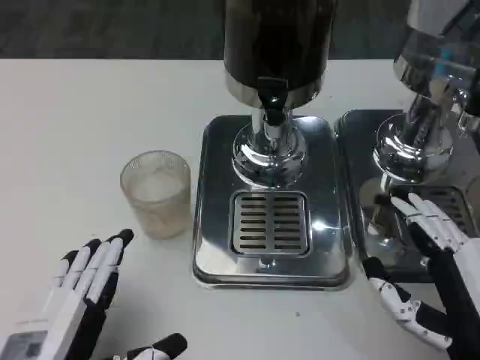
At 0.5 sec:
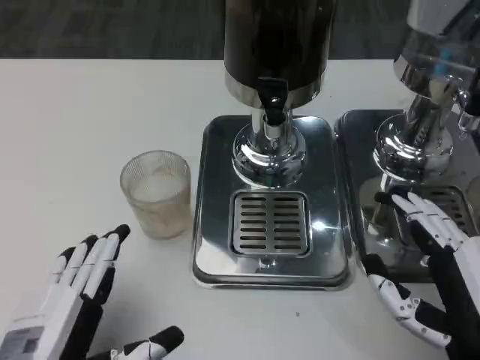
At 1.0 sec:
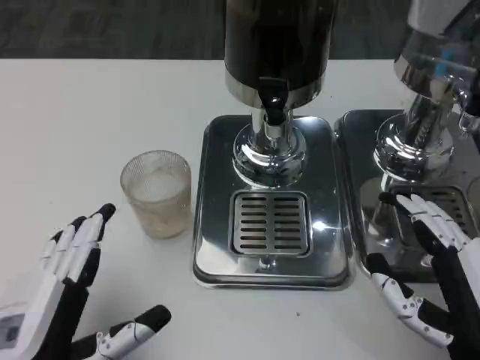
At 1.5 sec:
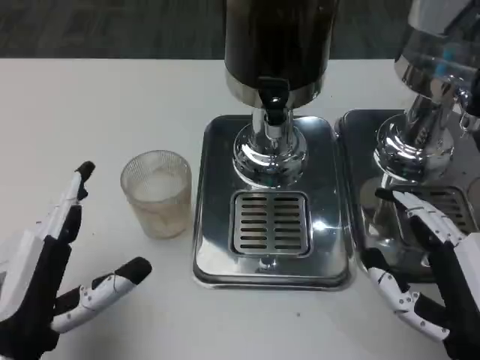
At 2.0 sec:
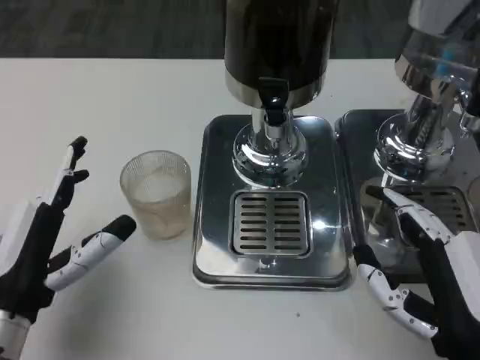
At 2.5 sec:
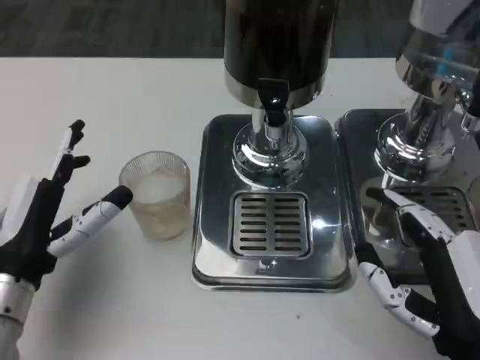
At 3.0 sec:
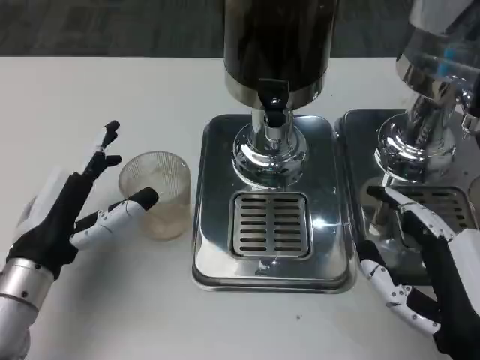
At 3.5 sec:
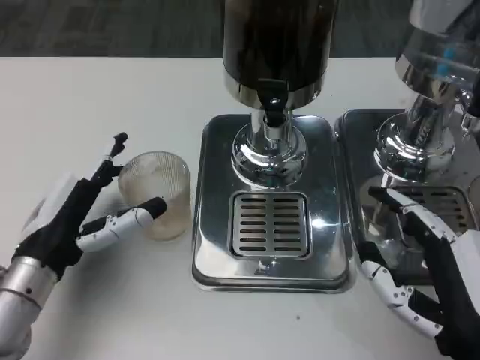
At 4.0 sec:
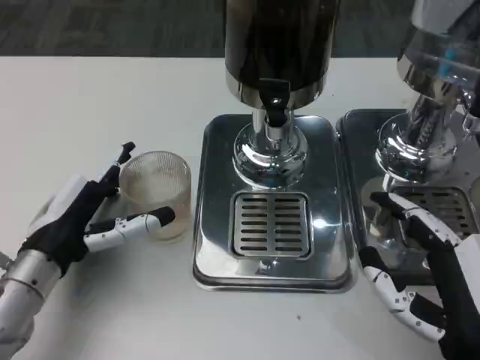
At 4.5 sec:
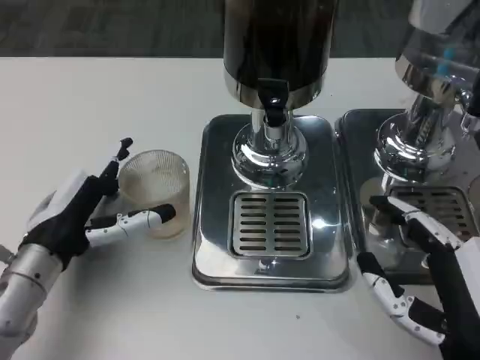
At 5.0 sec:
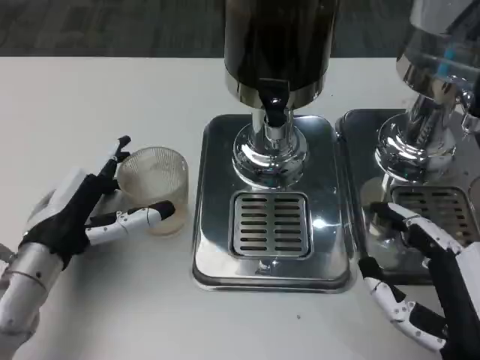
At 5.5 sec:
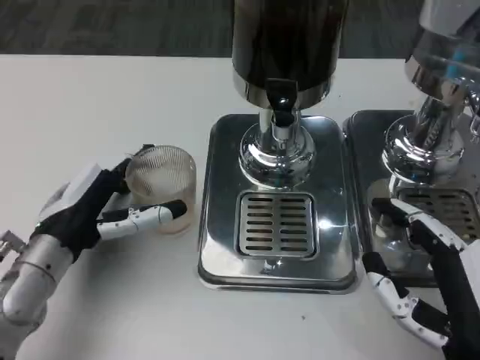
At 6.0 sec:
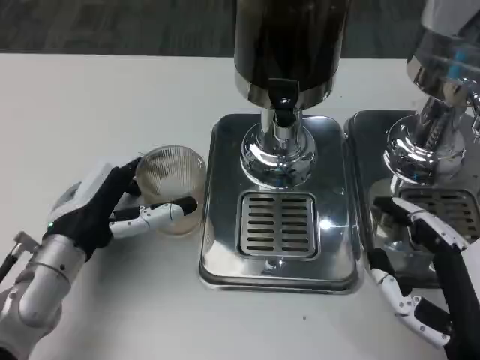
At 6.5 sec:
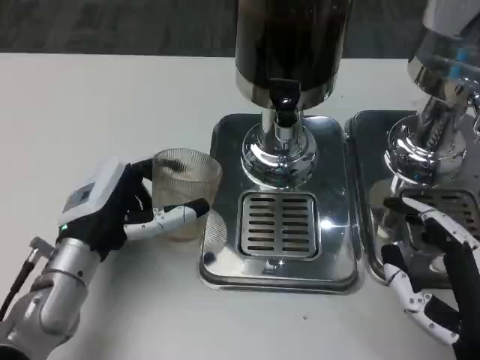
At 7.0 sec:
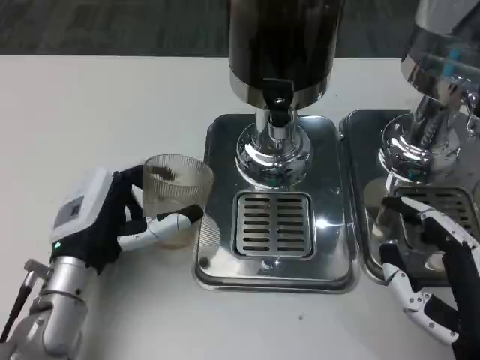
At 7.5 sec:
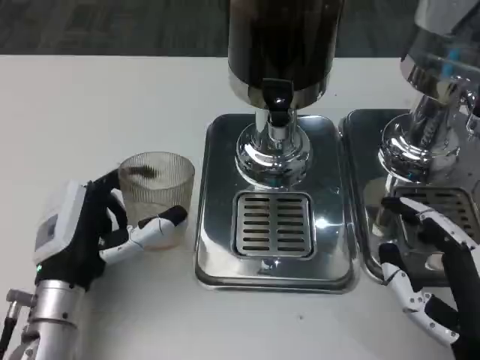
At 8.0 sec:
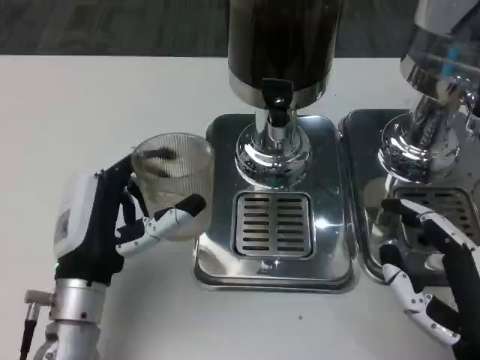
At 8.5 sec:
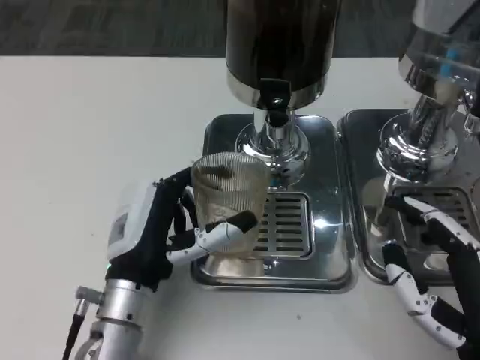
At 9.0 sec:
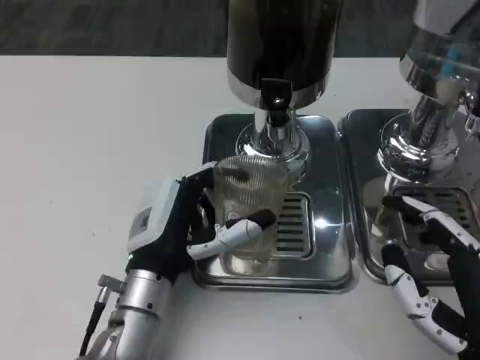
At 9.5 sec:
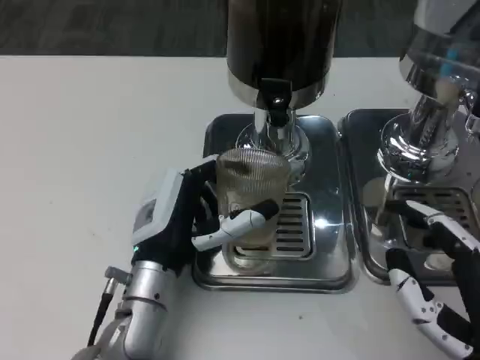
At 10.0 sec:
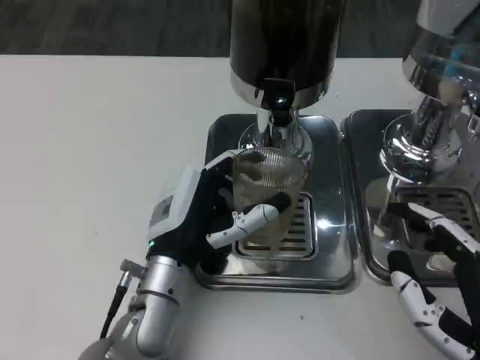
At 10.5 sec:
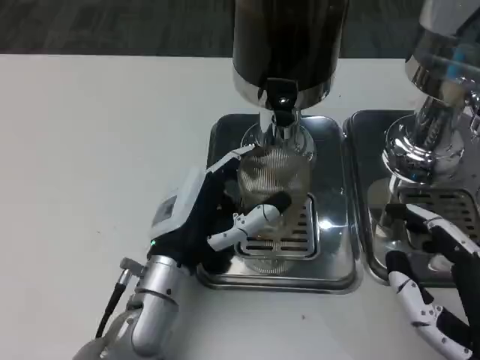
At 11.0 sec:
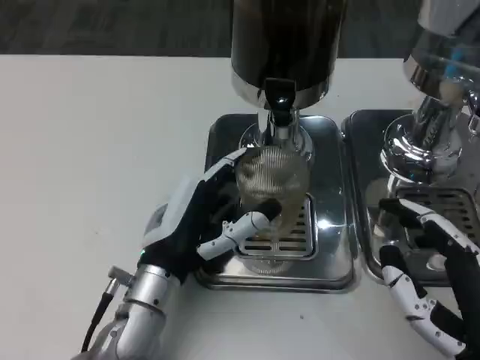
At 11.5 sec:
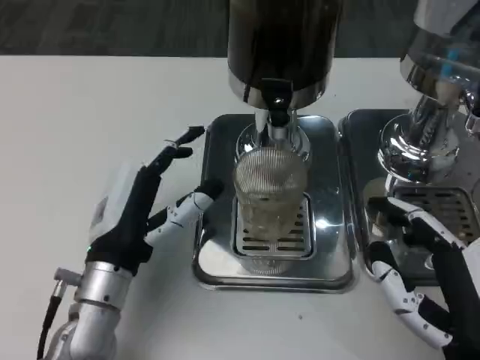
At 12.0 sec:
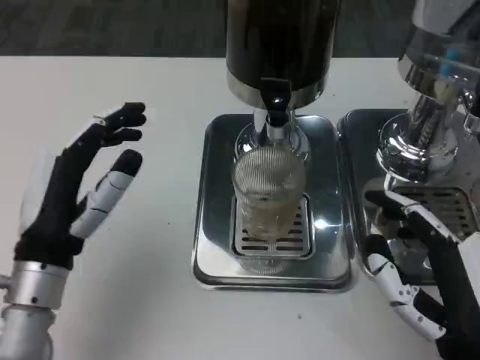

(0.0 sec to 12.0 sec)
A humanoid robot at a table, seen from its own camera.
Task of the whole recording: Grasp the cup under the faucet to collect the drink, then remove the cup.
0.0 sec - 2.0 sec: The left hand is displaced forward by approximately 10 cm.
2.0 sec - 4.0 sec: The left hand heads forward, covering approximately 5 cm.
6.0 sec - 8.0 sec: The left hand shifts by roughly 5 cm.
8.0 sec - 10.0 sec: The left hand moves to the right, roughly 5 cm.
10.0 sec - 12.0 sec: The left hand shifts some 10 cm to the left.

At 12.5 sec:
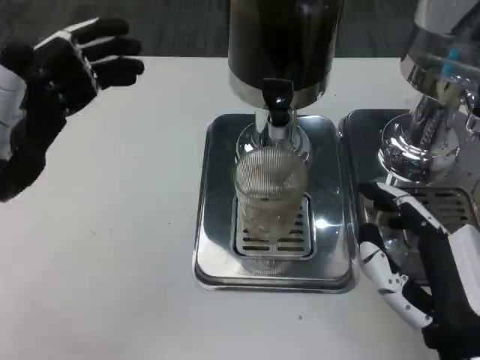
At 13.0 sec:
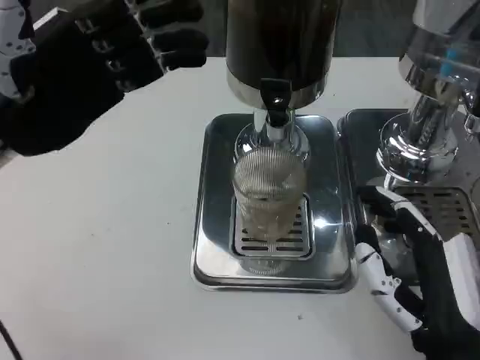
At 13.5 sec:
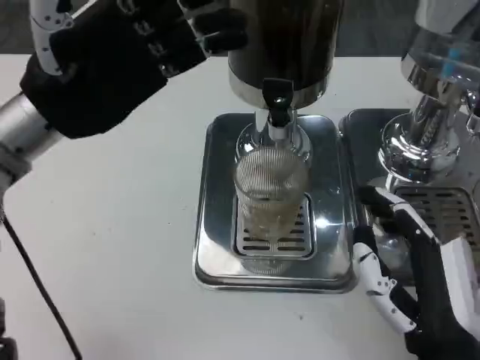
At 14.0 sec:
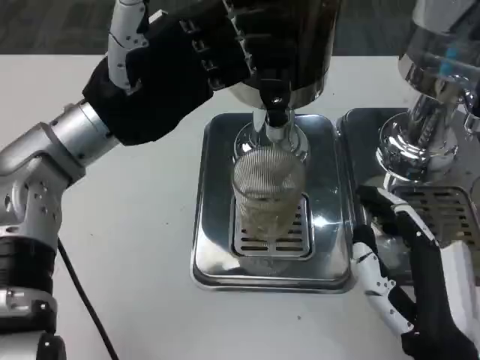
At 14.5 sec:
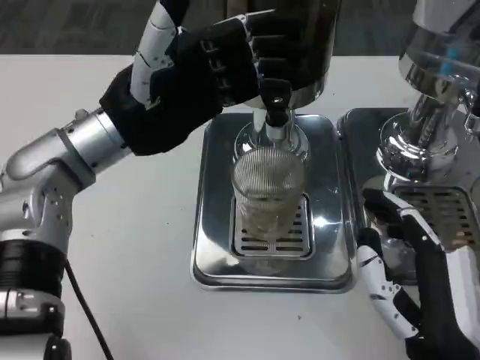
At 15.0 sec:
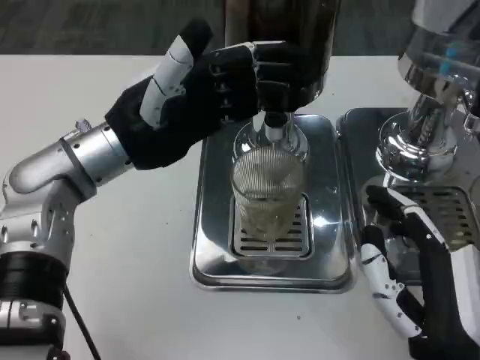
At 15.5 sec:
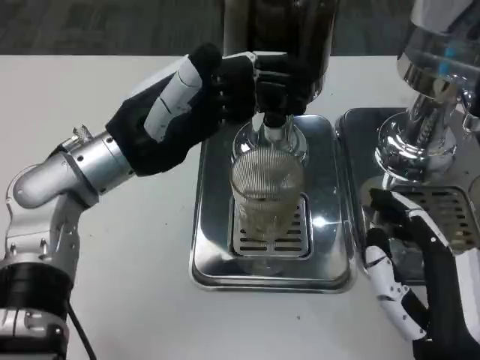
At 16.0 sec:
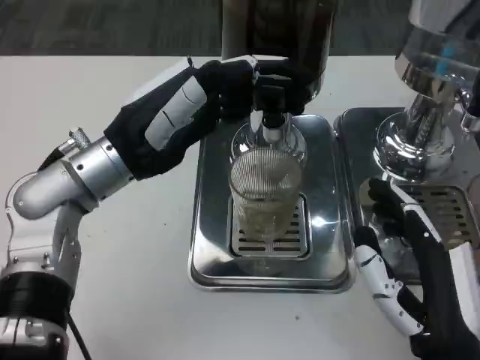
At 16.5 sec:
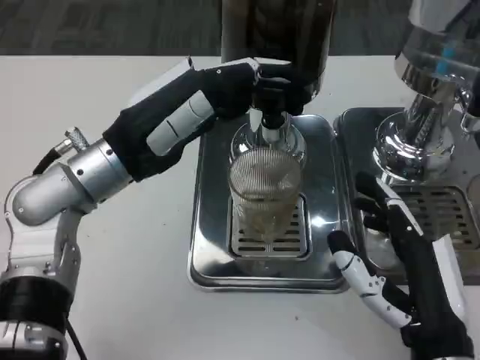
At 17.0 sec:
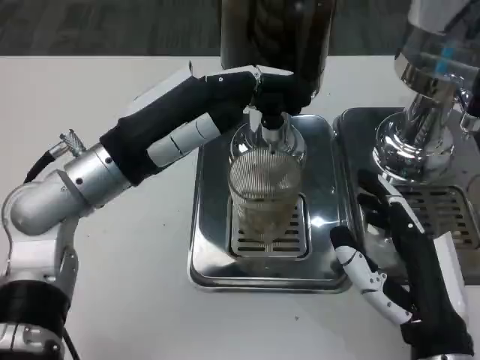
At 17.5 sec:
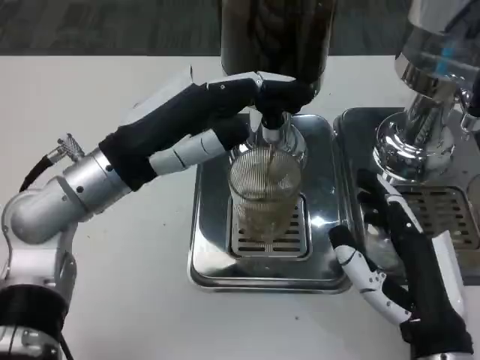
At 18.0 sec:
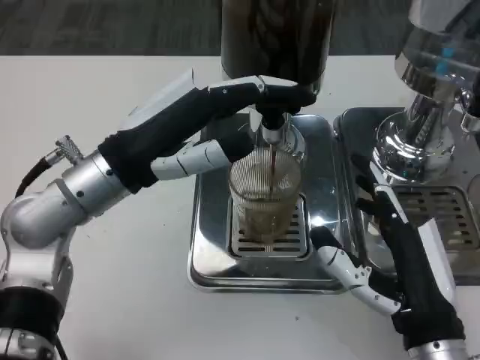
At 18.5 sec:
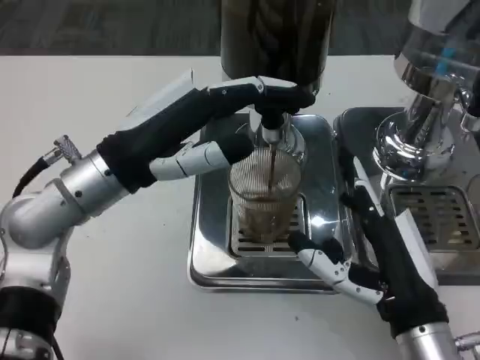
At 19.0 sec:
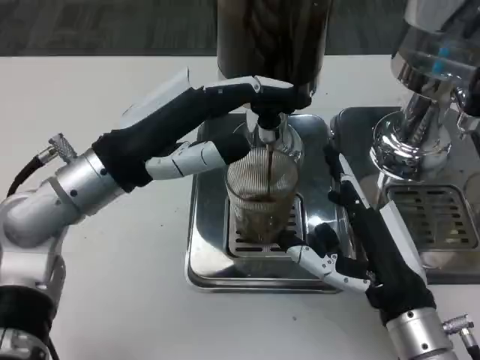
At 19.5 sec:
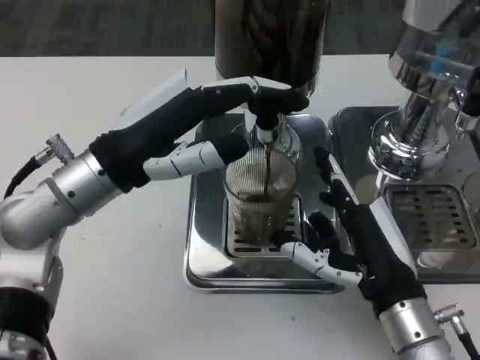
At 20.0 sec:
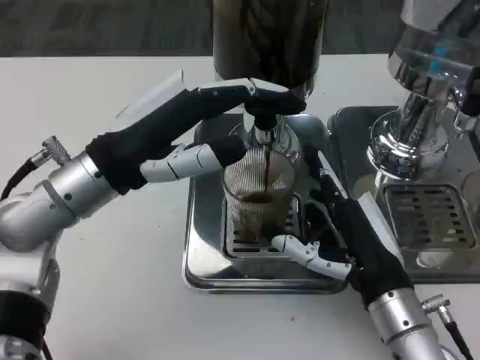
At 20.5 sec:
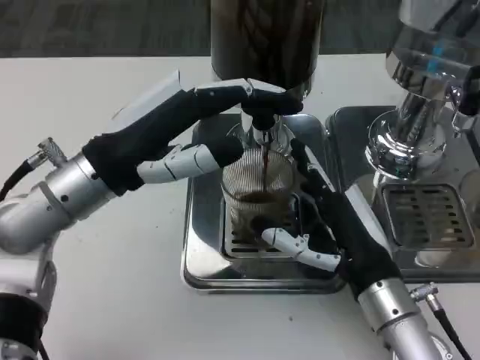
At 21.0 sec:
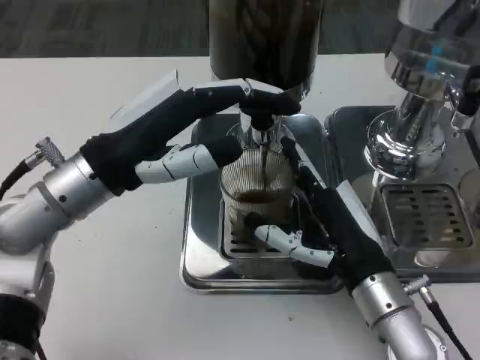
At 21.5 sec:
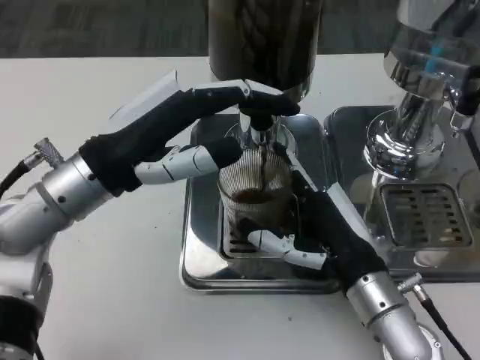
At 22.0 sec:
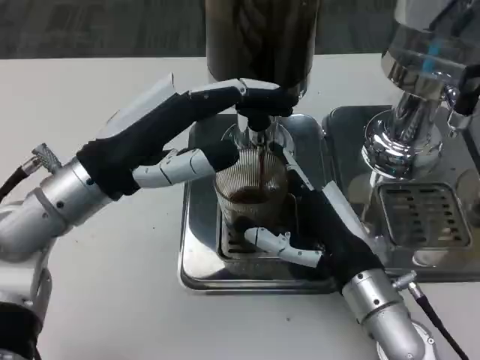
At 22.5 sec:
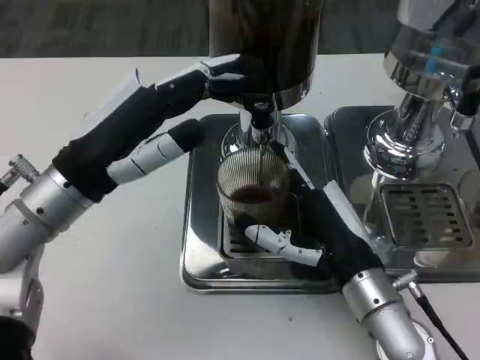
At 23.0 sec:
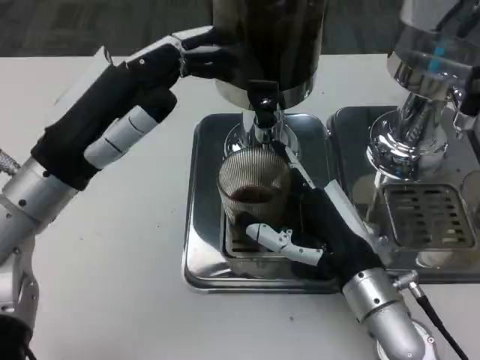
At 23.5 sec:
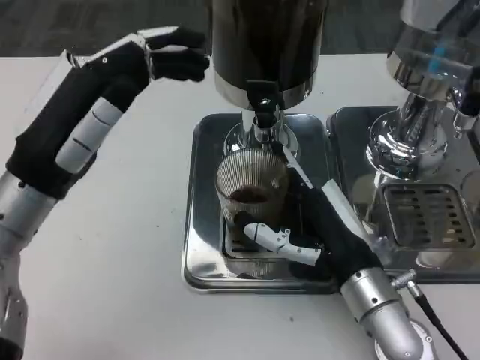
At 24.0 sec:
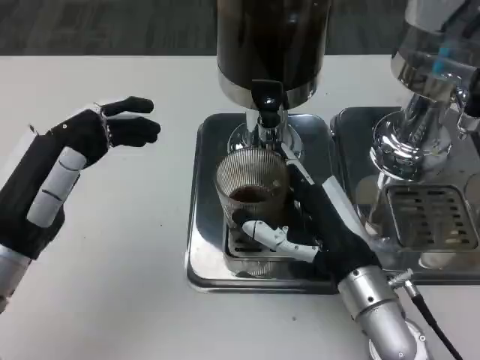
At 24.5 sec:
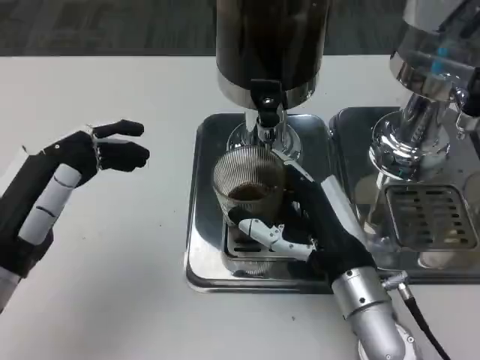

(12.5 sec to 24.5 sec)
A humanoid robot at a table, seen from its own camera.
Task of the whole recording: Grasp the cup under the faucet to collect the drink, then remove the cup.
12.5 sec - 14.5 sec: The left hand shifts about 10 cm to the right and forward.
18.5 sec - 20.5 sec: The right hand travels forward by roughly 5 cm.
22.5 sec - 24.5 sec: The left hand shifts roughly 10 cm backward, downward and to the left.

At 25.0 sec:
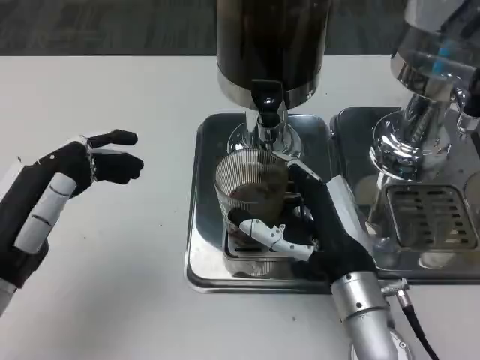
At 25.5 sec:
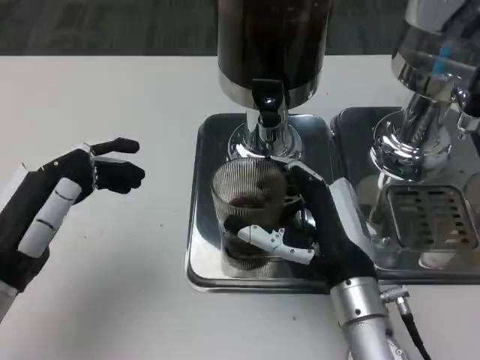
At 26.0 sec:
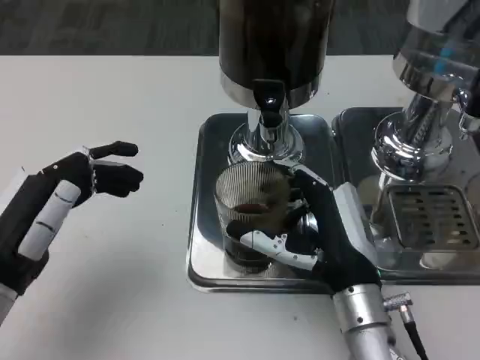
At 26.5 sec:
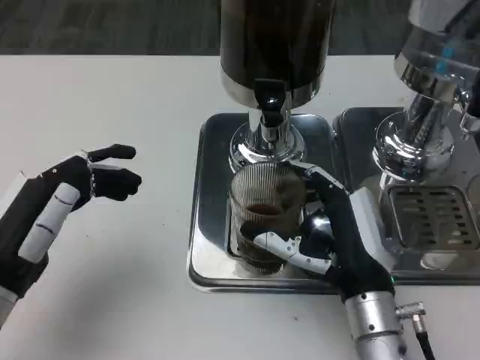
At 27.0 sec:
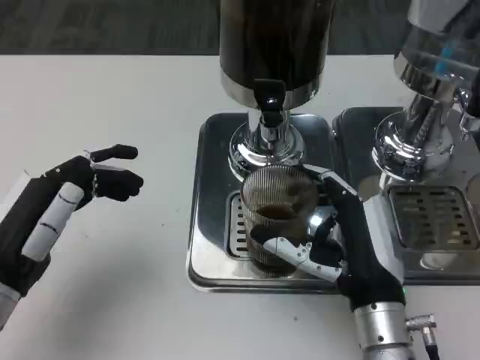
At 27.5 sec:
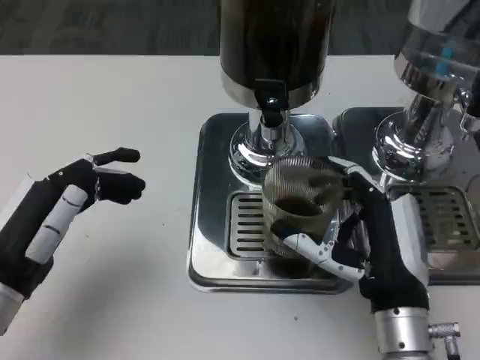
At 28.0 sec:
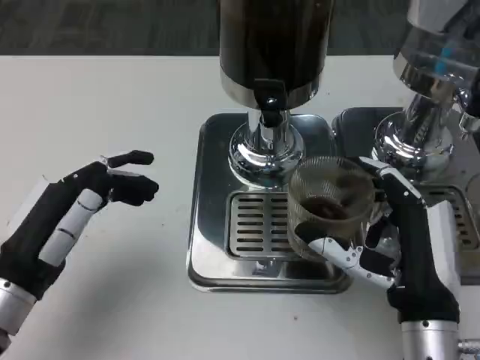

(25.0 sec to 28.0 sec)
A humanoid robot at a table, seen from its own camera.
Task of the whole recording: Grasp the cup under the faucet to collect the drink, then remove the cup.
26.5 sec - 28.0 sec: The right hand ends up some 5 cm from where it was.
